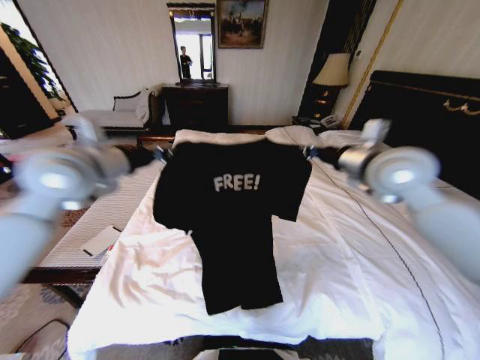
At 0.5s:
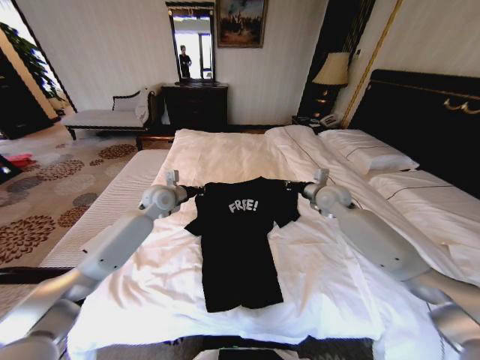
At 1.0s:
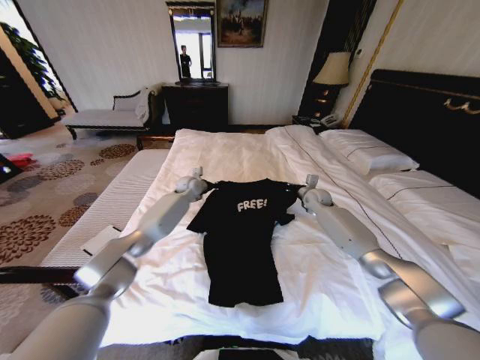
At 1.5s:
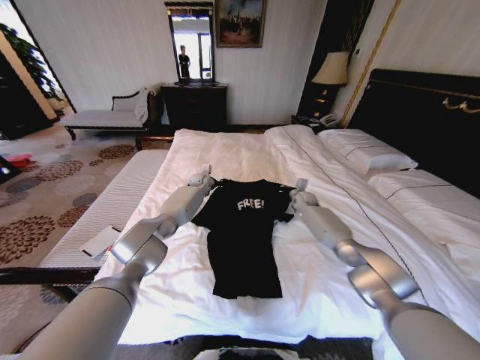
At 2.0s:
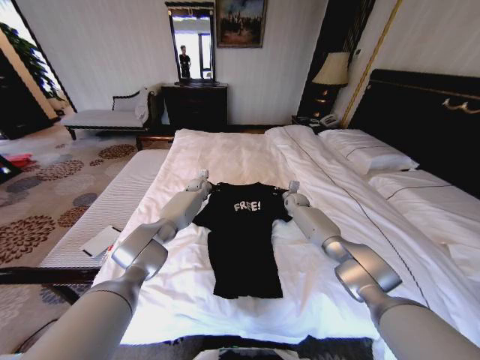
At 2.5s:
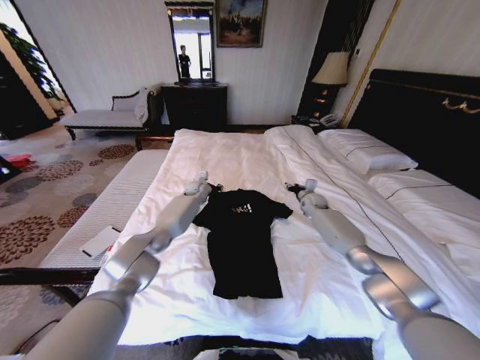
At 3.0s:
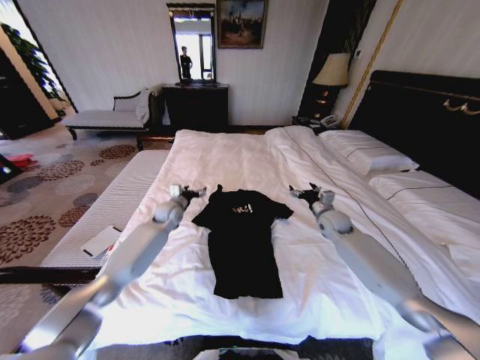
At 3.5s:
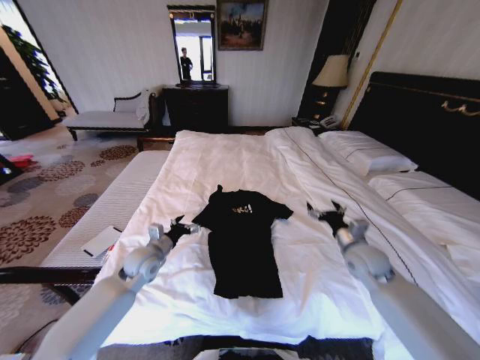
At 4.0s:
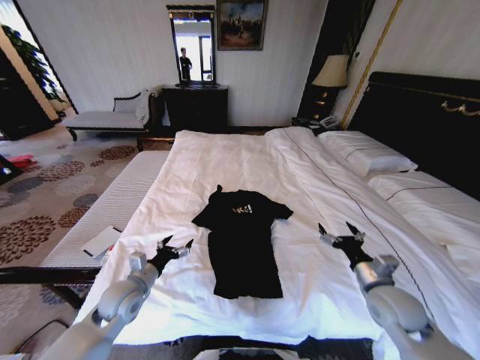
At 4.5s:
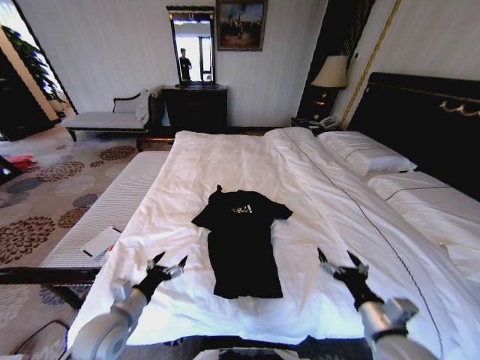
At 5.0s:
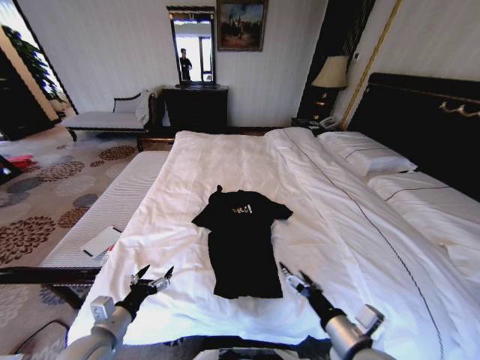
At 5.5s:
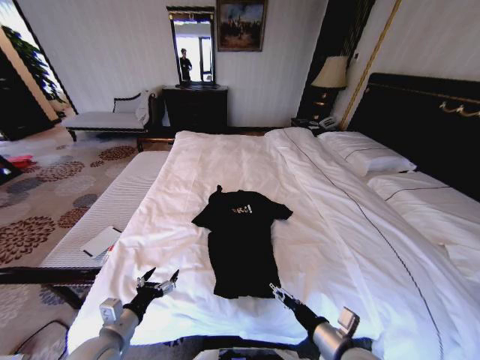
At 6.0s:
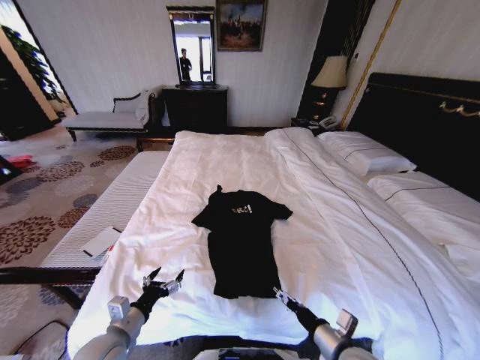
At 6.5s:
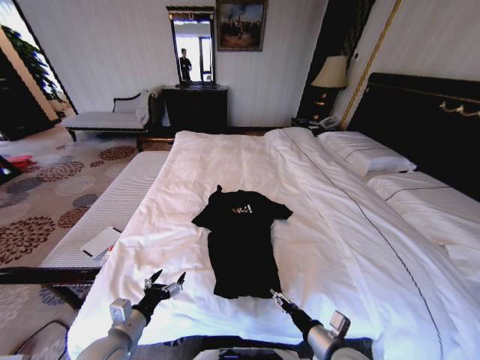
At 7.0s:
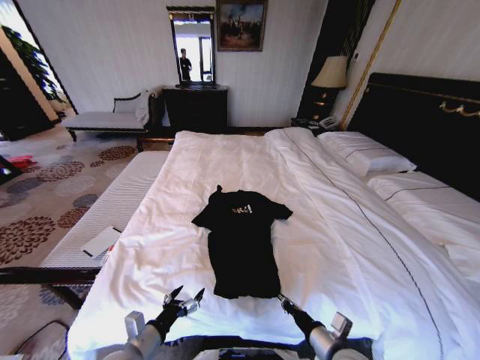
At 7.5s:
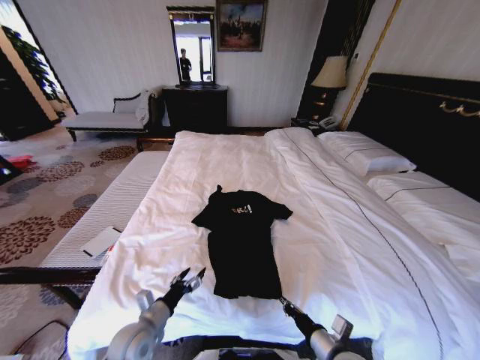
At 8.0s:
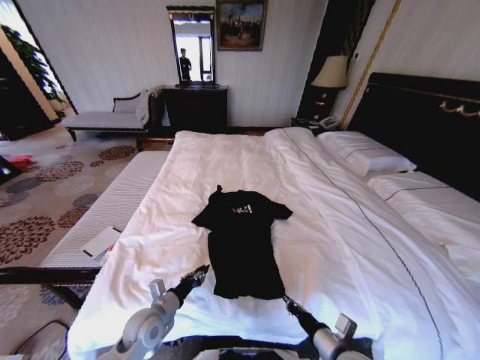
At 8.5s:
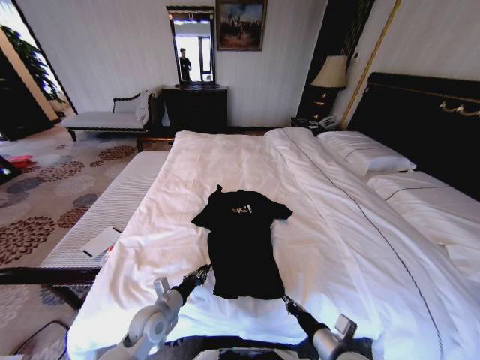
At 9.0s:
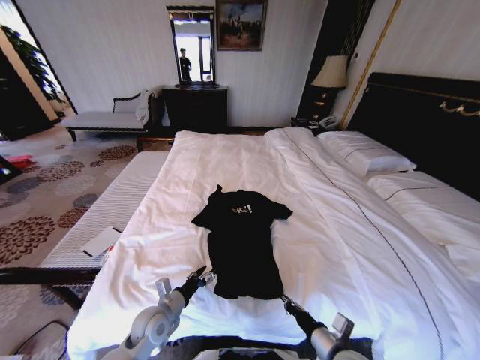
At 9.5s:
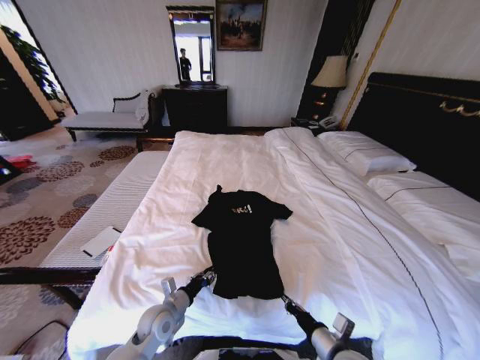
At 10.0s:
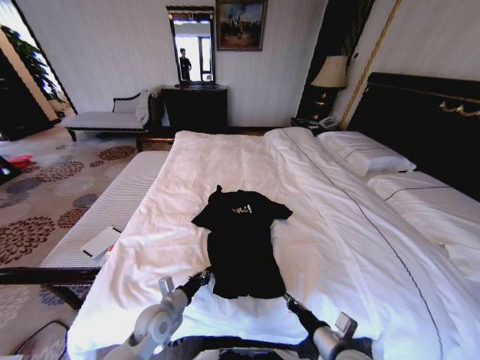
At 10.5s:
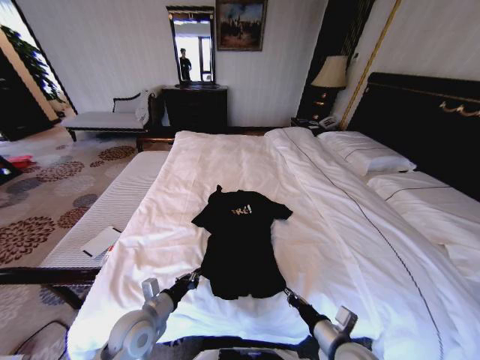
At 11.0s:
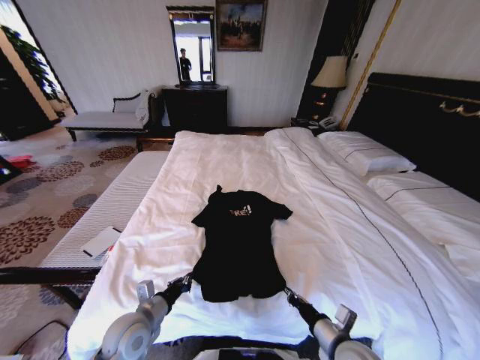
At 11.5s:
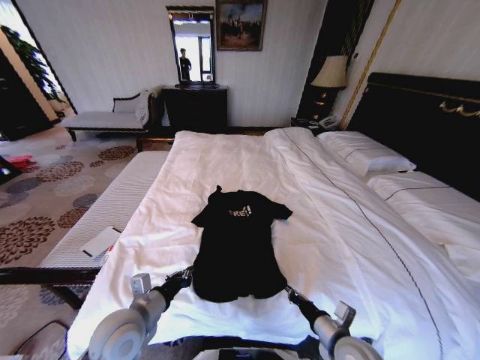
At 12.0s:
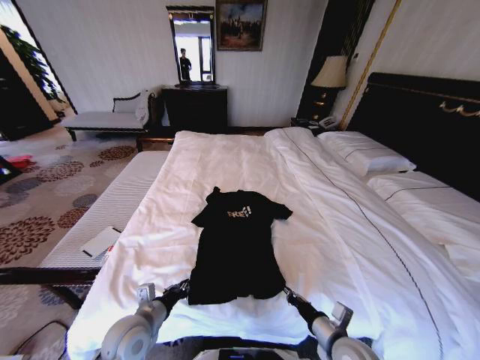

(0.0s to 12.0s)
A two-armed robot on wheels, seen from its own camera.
Task of the whole recording: Fold the clothes on the bed.
0.0s - 2.0s: The left gripper moves forward, downward and to the right, some 40 cm. Meanwhile the right gripper shifts roughly 40 cm downward and forward.
2.0s - 4.0s: The grippers both shift backward by some 40 cm. The right gripper opens its fingers; the left gripper opens its fingers.
4.0s - 6.0s: The left gripper goes about 10 cm backward, while the right gripper travels backward, to the left and downward by about 15 cm.
6.0s - 8.0s: The right gripper closes its fingers, while the left gripper travels forward, downward and to the right by roughly 10 cm, and closes up.
8.0s - 10.0s: The left gripper opens, then closes again.
10.0s - 12.0s: The left gripper heads upward, covering some 5 cm.

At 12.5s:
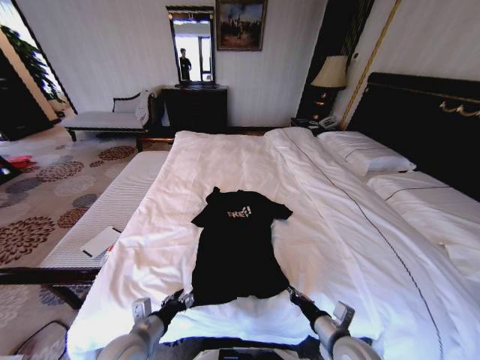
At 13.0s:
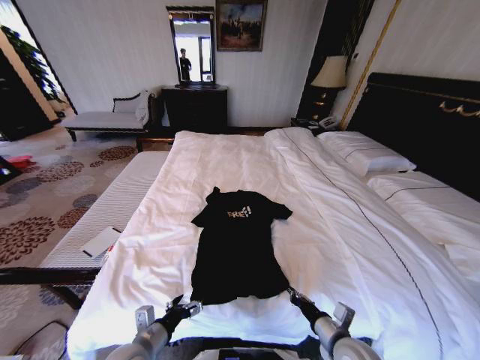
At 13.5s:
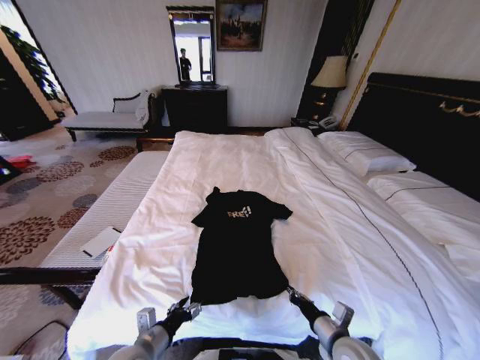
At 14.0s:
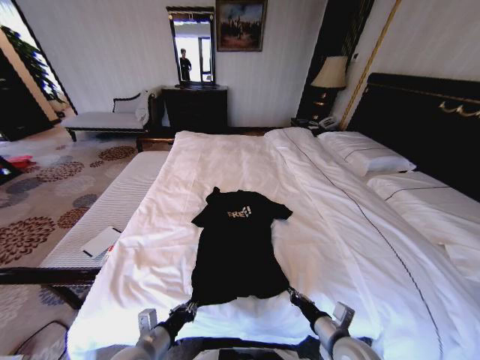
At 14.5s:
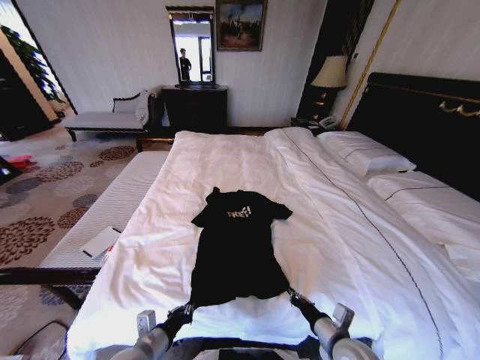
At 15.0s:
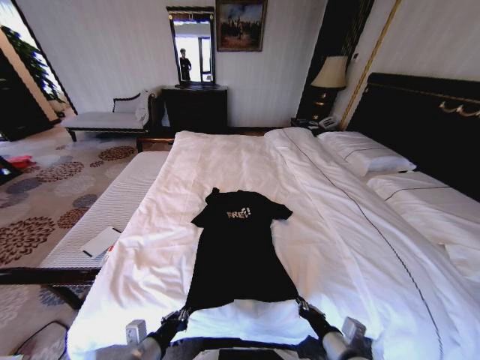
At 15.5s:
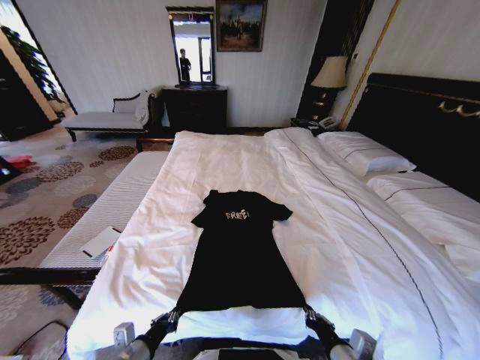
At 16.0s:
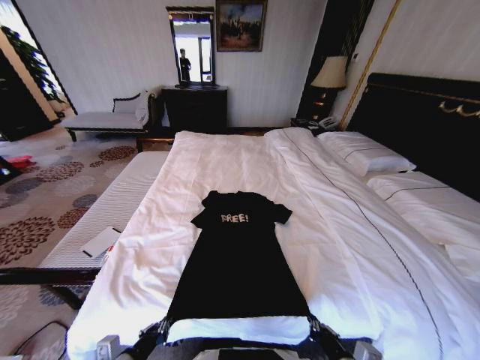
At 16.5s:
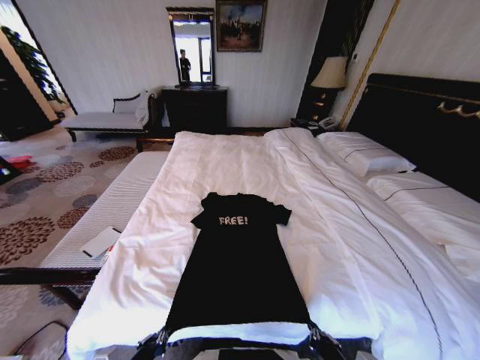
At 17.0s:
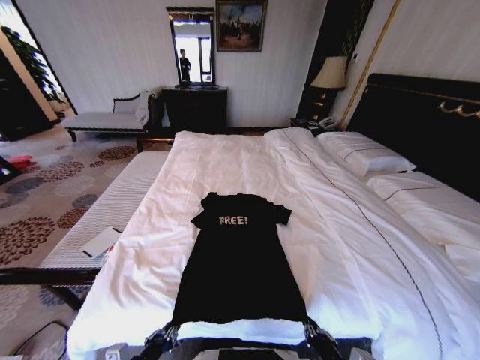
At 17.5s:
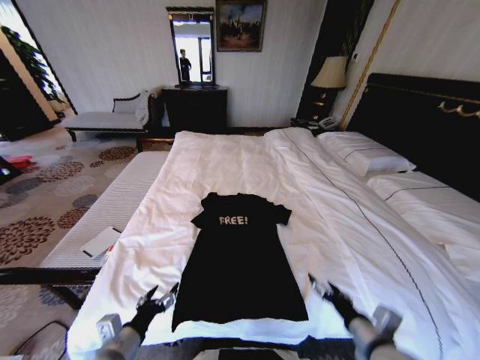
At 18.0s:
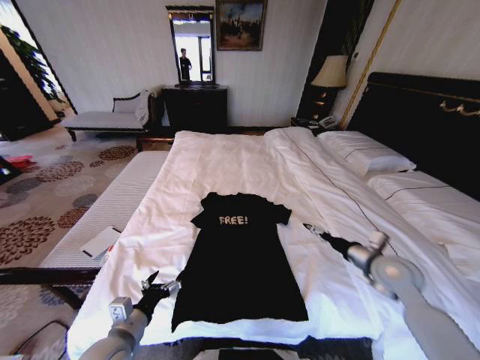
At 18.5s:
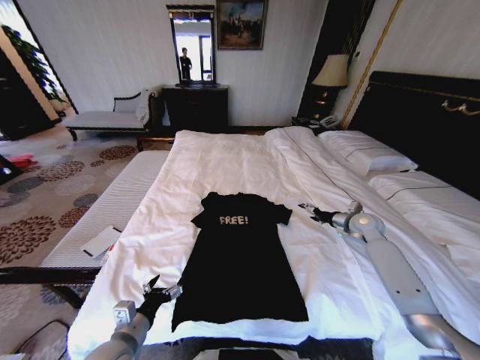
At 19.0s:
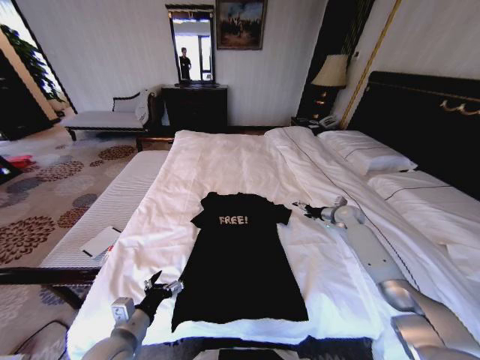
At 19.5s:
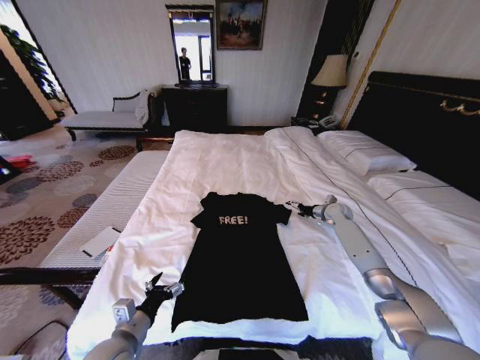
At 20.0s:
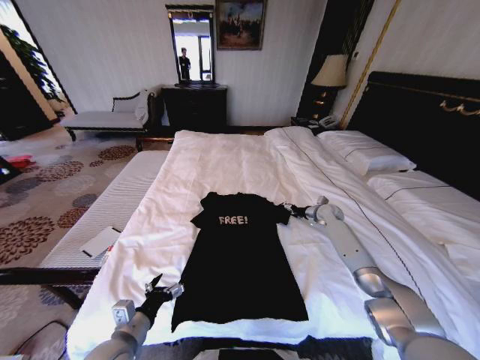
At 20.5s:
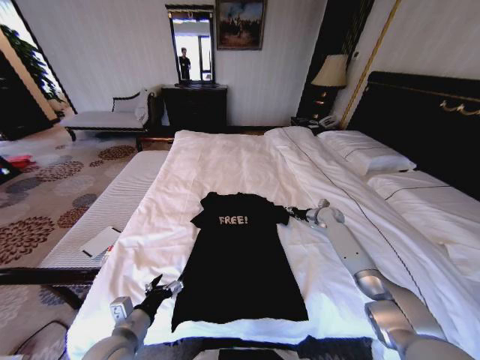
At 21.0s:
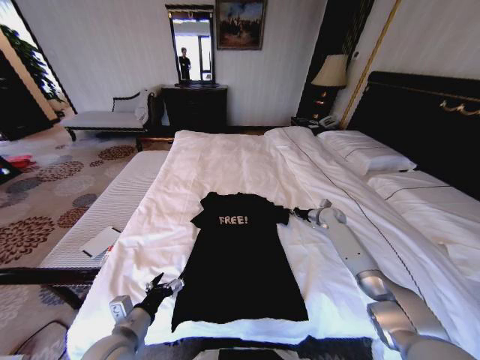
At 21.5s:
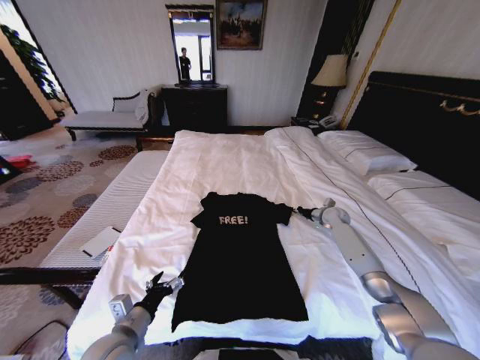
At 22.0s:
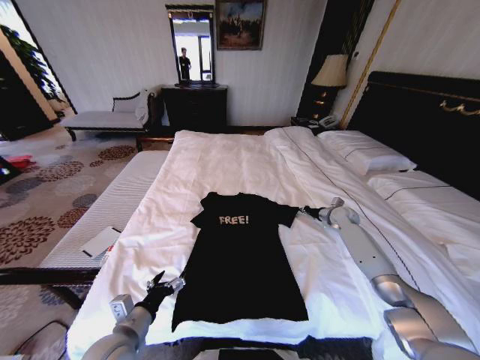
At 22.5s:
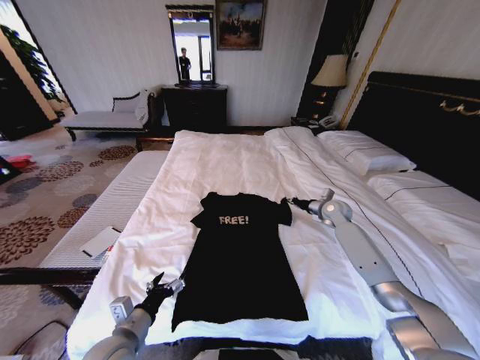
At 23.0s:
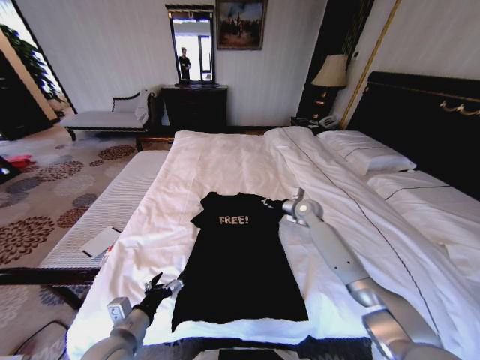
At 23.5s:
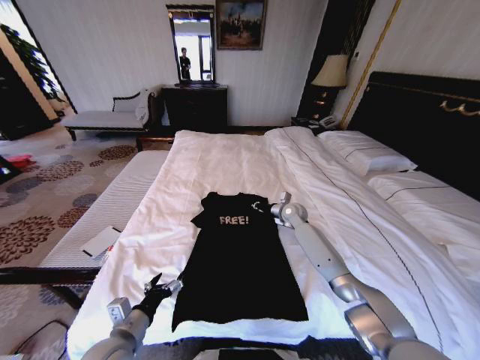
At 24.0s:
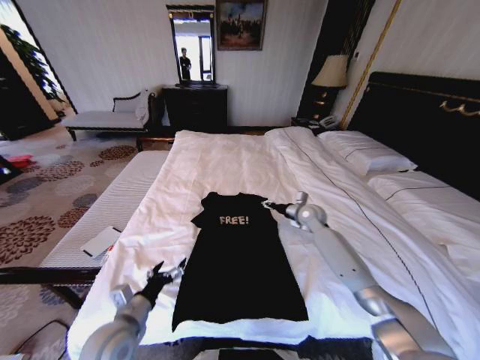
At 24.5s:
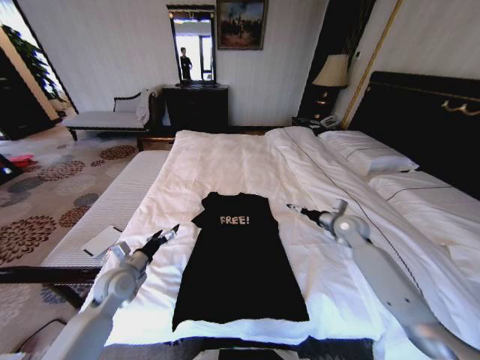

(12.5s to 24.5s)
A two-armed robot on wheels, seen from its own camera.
Task of the whole recording: Fold the clothes on the bed.
12.5s - 14.5s: The left gripper closes its fingers.
14.5s - 16.5s: Both grippers travel together backward, roughly 10 cm.
16.5s - 18.5s: The right gripper goes about 50 cm forward and to the right, and opens its fingers; the left gripper heads forward, covering roughly 10 cm, and opens.
18.5s - 20.5s: The right gripper is displaced forward and downward by roughly 10 cm, and closes up.
20.5s - 22.5s: The right gripper moves upward, about 10 cm, and closes up.
22.5s - 24.5s: The left gripper shifts roughly 15 cm forward and to the left. The right gripper moves backward, about 10 cm, travels to the left and back again, roughly 15 cm each way, and opens.

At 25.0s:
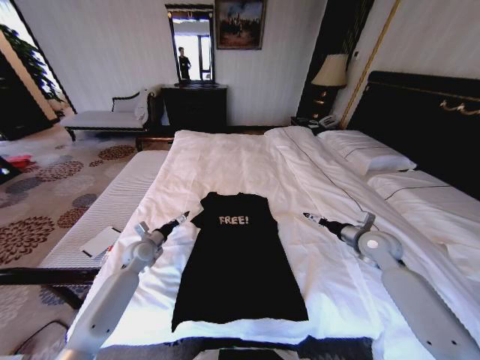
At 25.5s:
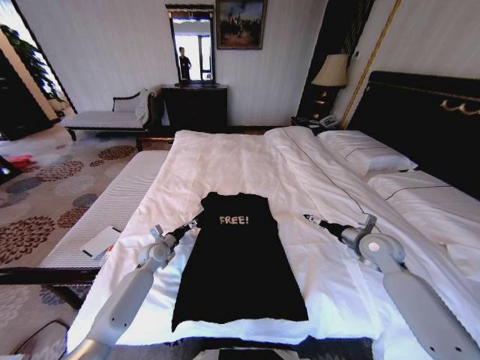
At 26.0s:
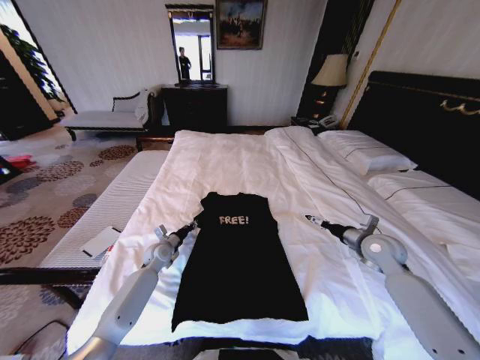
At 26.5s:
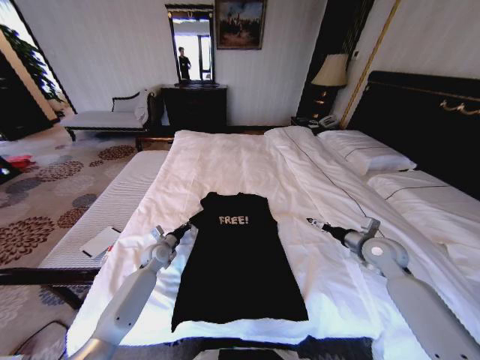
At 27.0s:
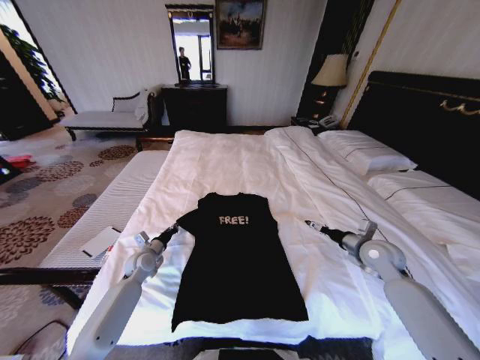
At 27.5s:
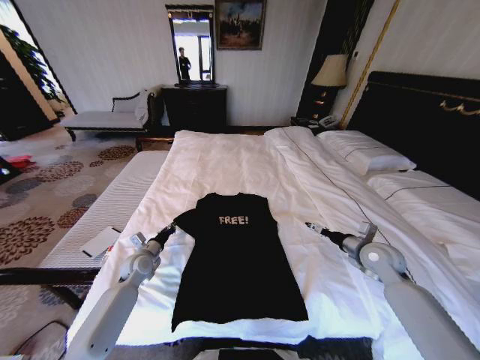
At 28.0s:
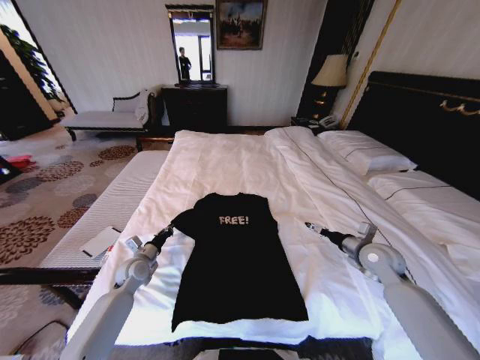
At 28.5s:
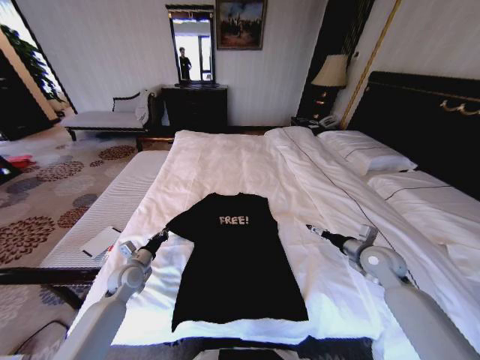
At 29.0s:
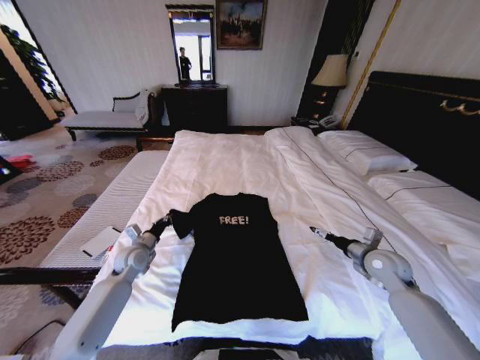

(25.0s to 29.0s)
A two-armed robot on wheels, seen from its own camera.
Task of the whole recording: Fold the clothes on the bed.
25.0s - 27.0s: The left gripper closes up.
27.0s - 29.0s: The left gripper changes place by about 5 cm.
